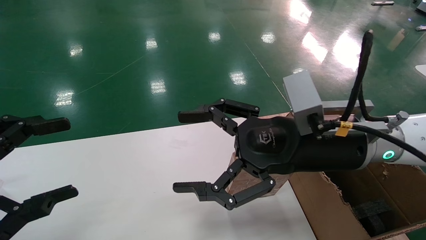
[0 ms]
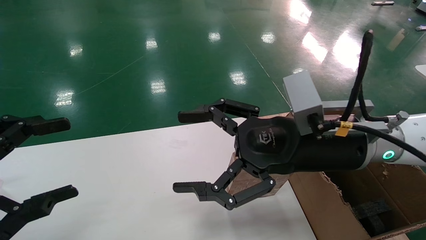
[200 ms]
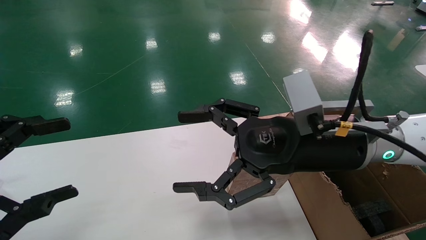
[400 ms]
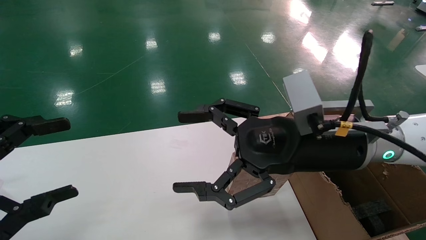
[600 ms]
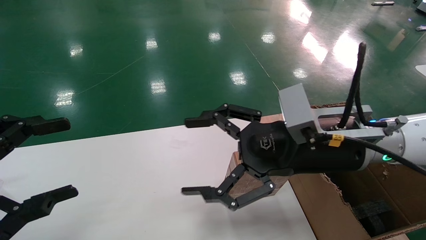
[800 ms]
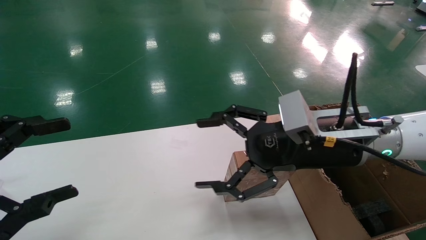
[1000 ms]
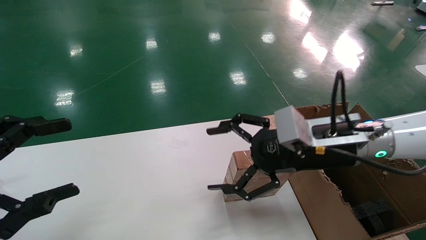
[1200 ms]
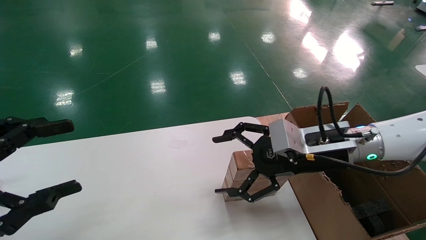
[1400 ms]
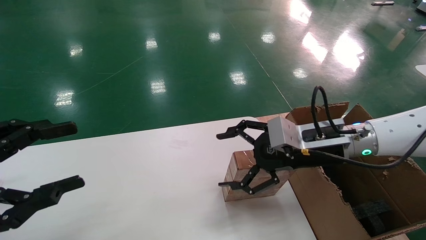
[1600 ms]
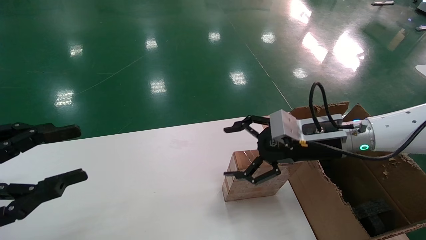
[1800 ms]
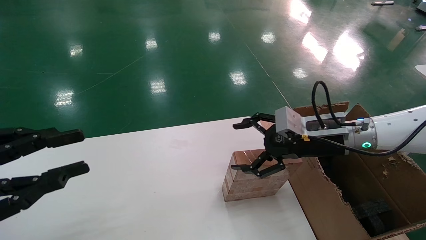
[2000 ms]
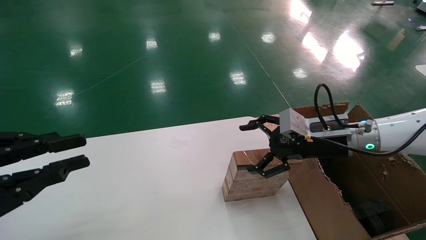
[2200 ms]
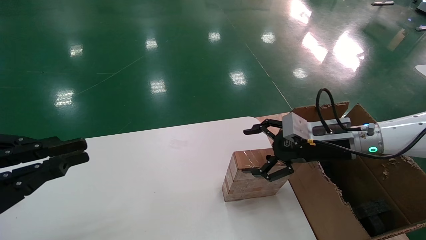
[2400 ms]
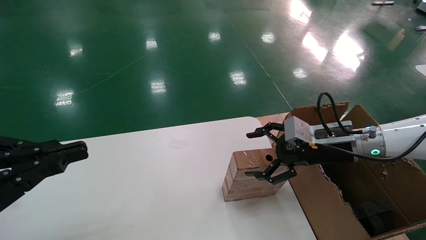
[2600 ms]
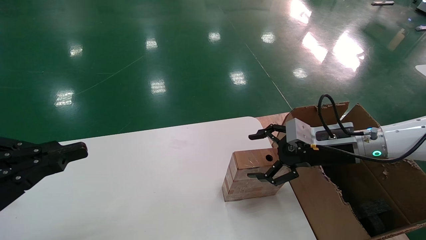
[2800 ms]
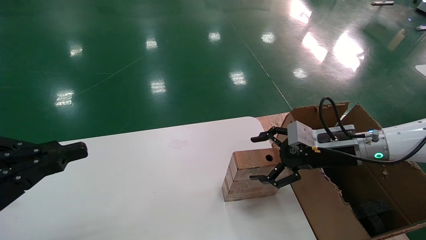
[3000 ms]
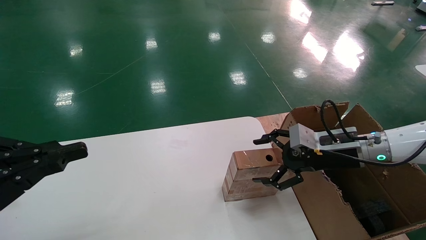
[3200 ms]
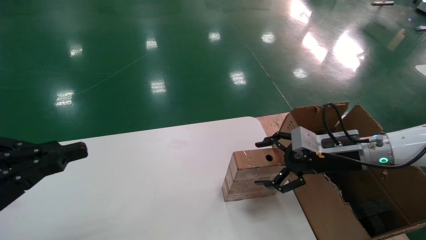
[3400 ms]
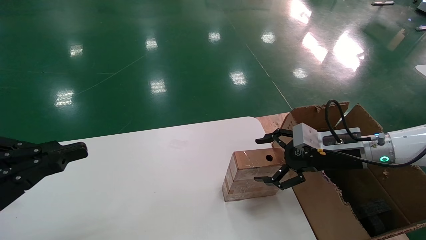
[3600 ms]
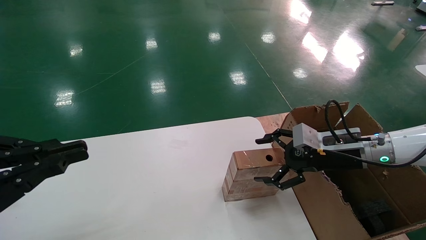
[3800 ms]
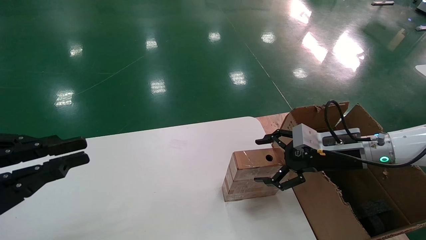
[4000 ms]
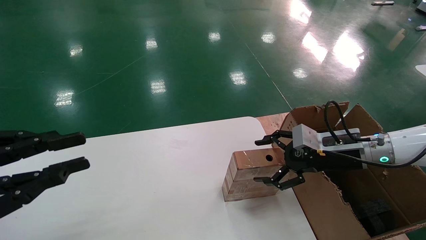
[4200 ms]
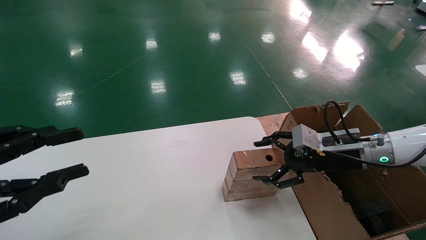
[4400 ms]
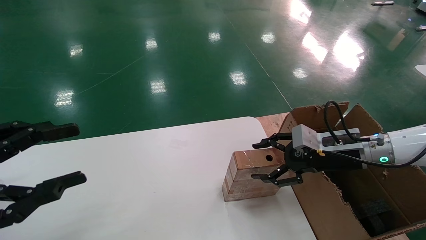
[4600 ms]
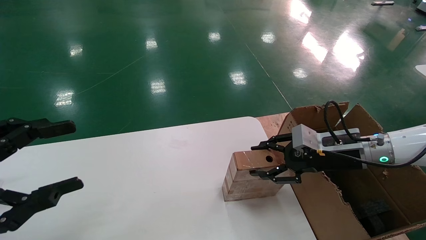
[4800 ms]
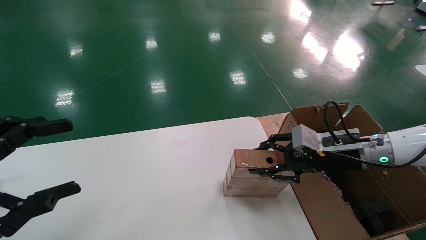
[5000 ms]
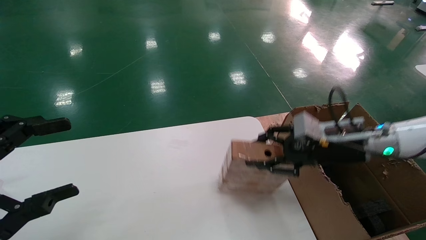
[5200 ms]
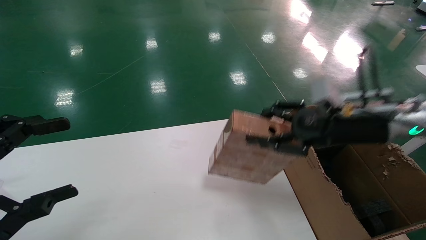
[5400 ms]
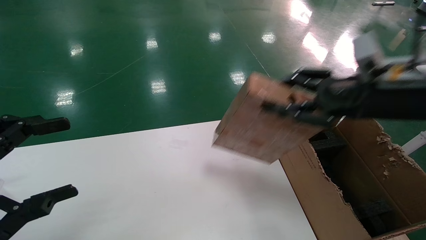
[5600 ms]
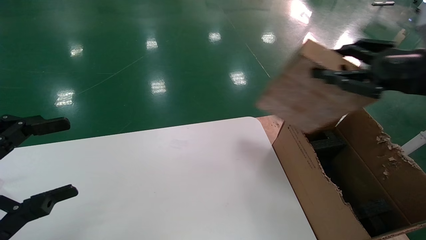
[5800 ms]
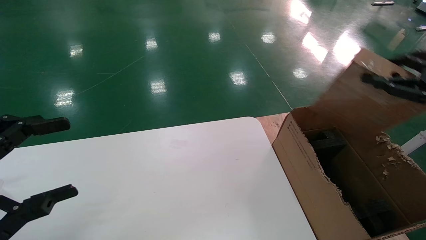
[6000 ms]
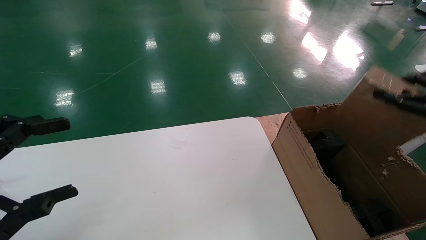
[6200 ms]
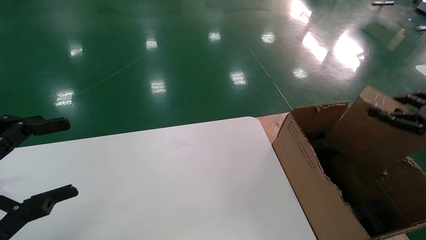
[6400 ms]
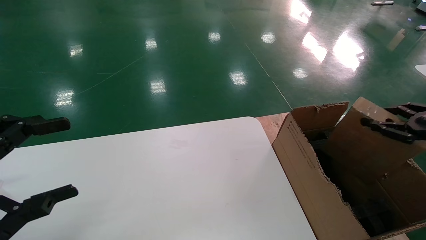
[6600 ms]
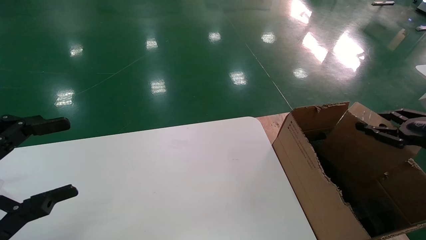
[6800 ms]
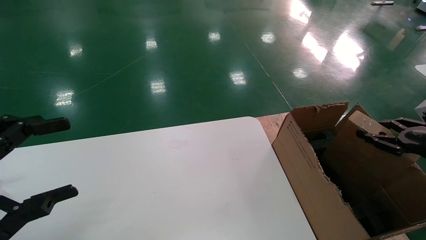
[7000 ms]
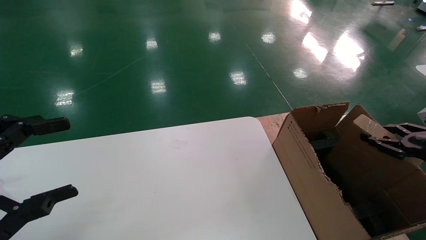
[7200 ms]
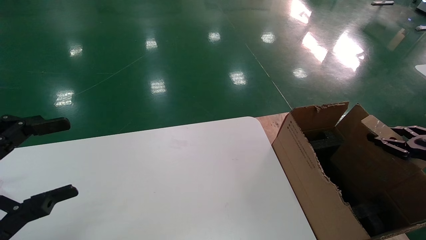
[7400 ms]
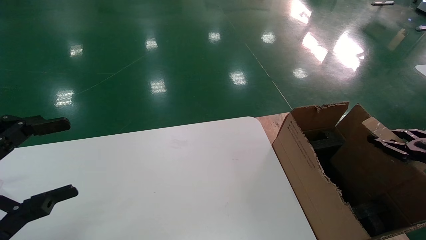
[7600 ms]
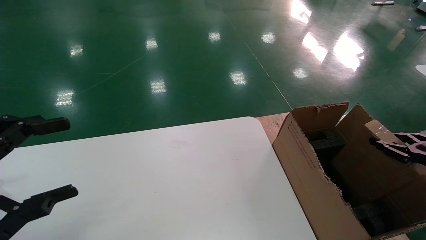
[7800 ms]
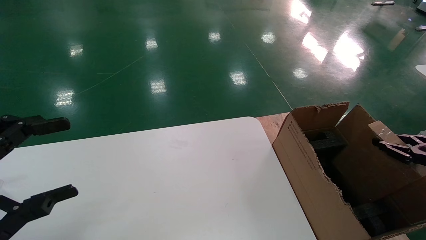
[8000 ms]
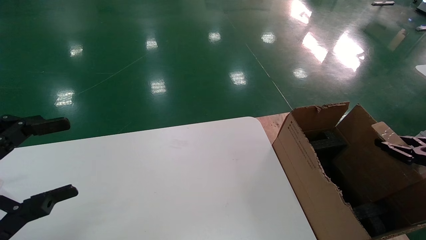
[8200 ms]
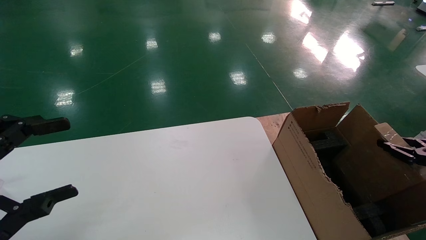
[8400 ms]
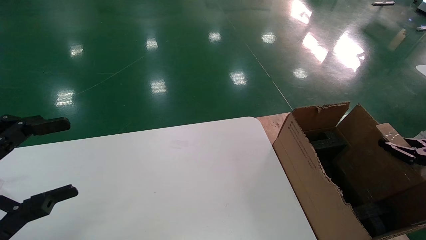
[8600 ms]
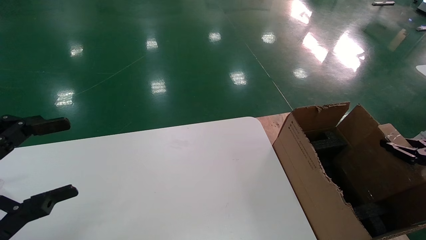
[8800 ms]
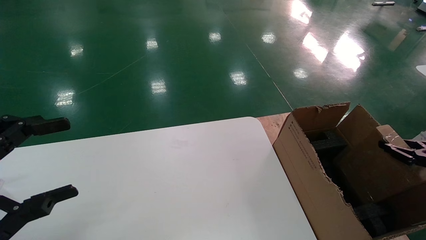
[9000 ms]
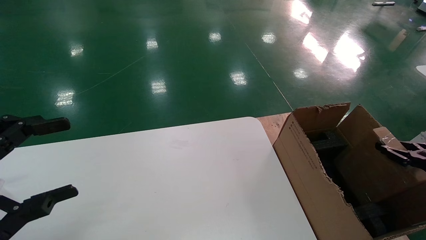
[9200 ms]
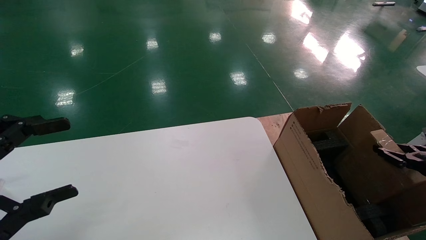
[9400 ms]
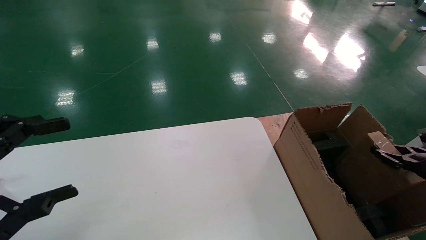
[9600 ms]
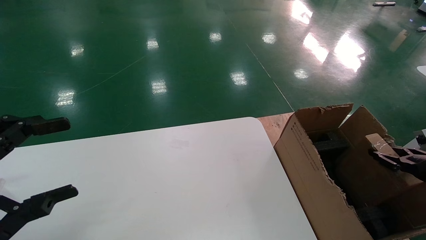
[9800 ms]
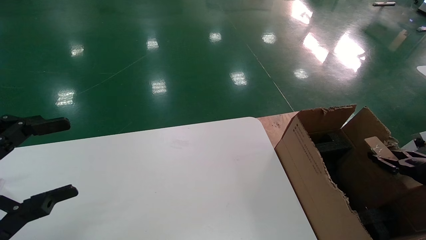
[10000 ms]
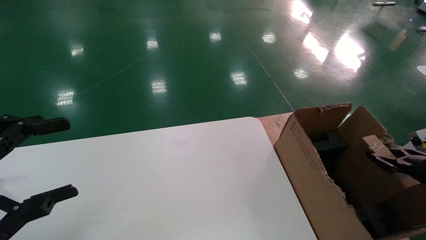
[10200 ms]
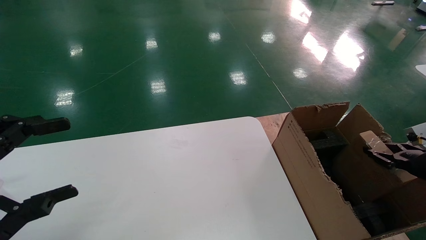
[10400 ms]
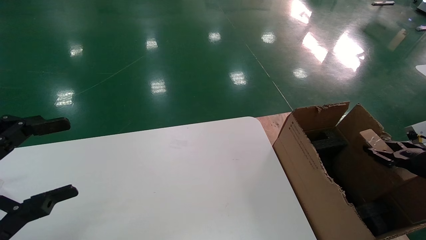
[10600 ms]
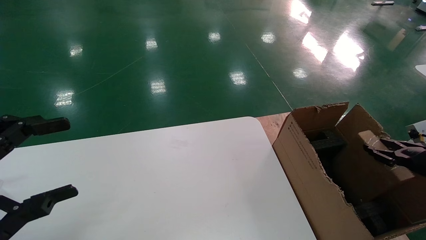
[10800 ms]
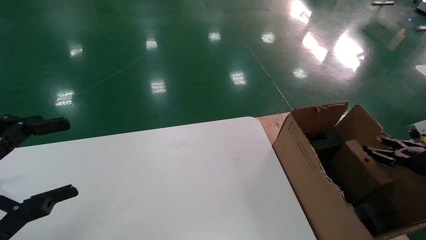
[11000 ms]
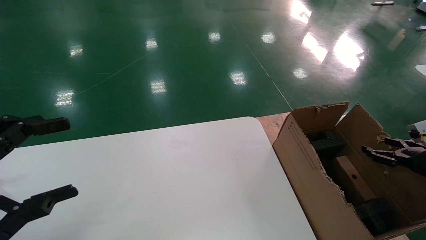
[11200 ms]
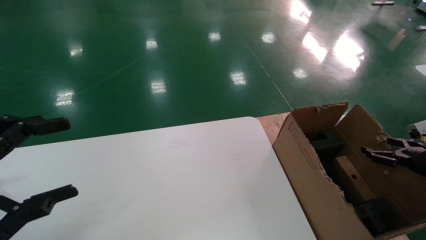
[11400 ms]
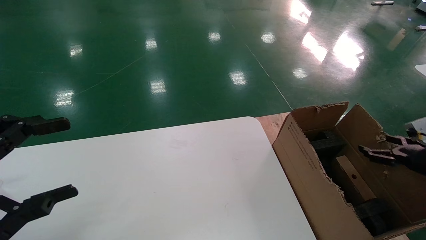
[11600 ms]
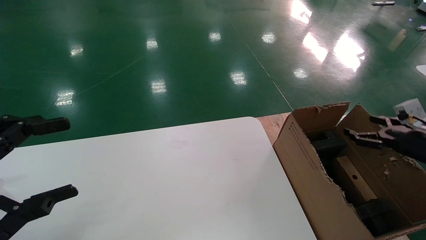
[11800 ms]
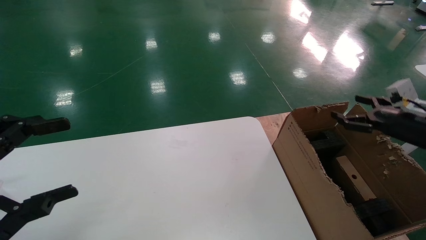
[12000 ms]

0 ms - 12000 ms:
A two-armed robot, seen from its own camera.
Task of the whole recording: put the box on the table into the big box.
Step, 1000 ms - 5000 ms: Pick up the mouse and the power cord paper box.
Step, 5200 ms - 11000 ms: Place the mouse and the power cord paper box into the container.
0 ms - 1600 ms: The right gripper heads forward, to the right and downward, covering roughly 10 cm.
1600 ms - 3000 ms: The left gripper closes its fingers; the right gripper shifts about 5 cm to the right.
3000 ms - 4400 ms: Both grippers stay put.
4400 ms - 6000 ms: The left gripper opens its fingers. Meanwhile the right gripper goes about 25 cm upward, to the right and backward, and closes.
6000 ms - 7600 ms: The right gripper goes roughly 20 cm downward and to the right.
7600 ms - 9000 ms: There are only small adjustments of the grippers.
9000 ms - 10400 ms: There are only small adjustments of the grippers.
10400 ms - 12000 ms: The right gripper travels upward and to the left by approximately 10 cm, and opens up.

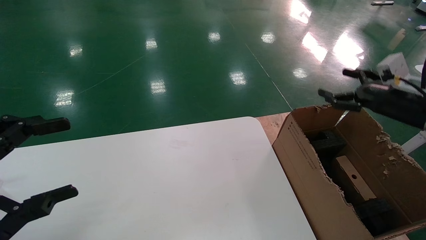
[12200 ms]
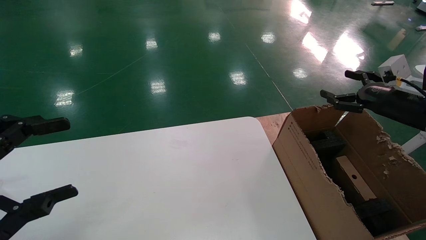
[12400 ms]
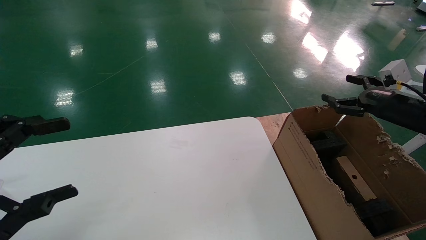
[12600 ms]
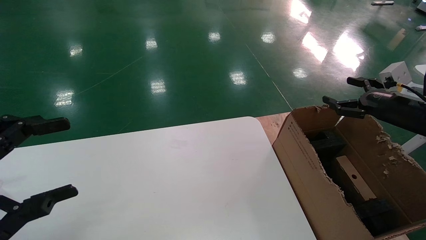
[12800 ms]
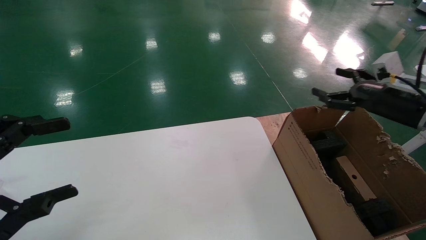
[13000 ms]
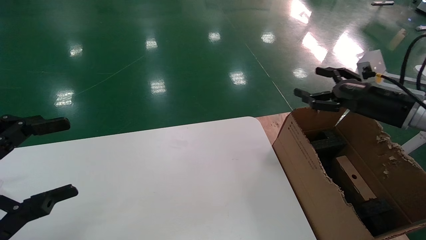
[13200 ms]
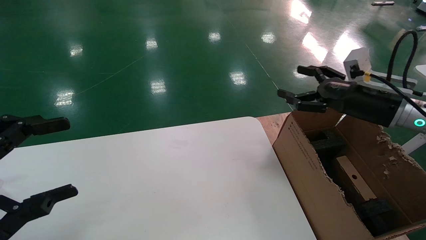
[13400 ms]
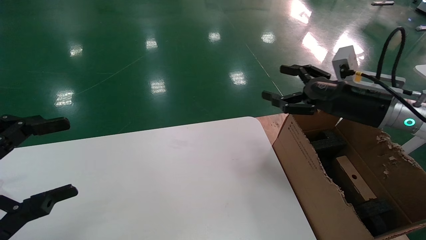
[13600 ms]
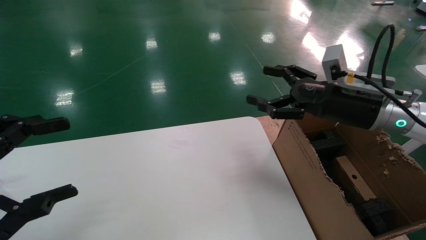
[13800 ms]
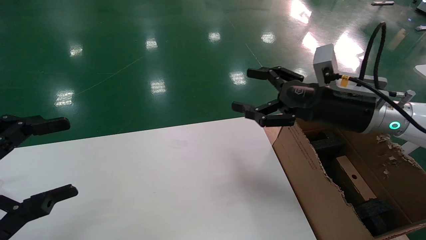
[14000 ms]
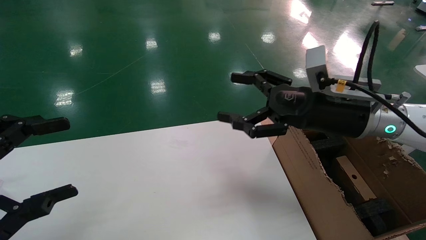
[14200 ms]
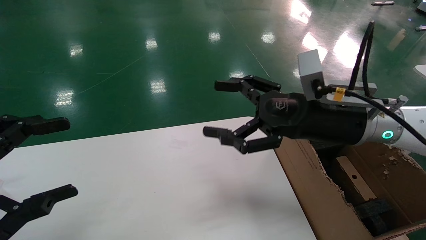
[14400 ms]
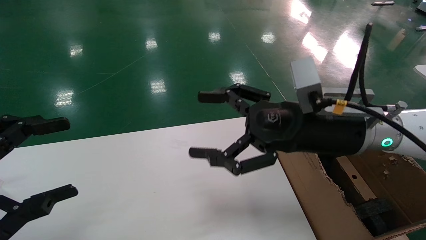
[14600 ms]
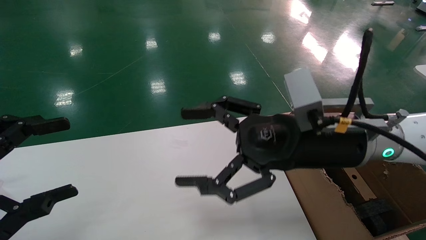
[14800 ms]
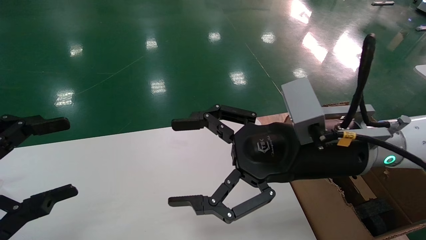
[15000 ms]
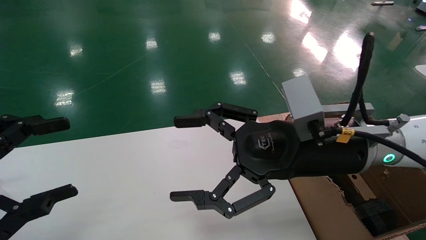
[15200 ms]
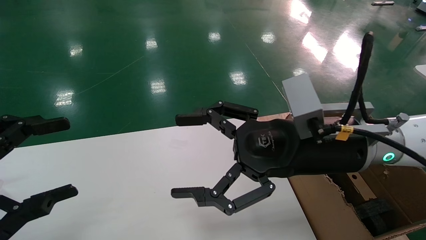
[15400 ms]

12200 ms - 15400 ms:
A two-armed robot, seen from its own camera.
Task of the whole recording: put the box on the table into the big box.
12200 ms - 13800 ms: The right gripper moves to the left, roughly 15 cm.
13800 ms - 15400 ms: The right gripper shifts approximately 15 cm to the left and backward.

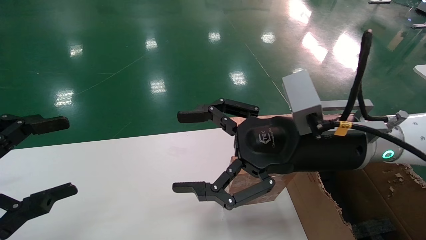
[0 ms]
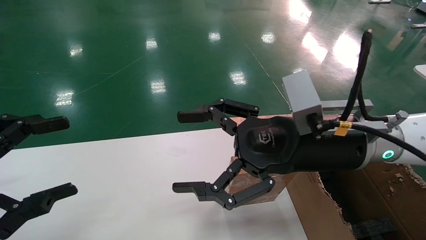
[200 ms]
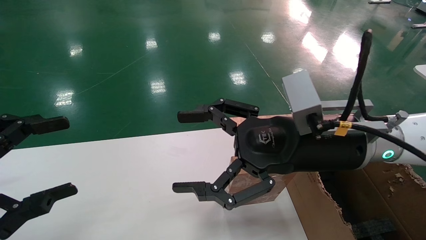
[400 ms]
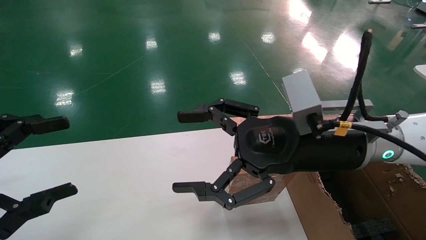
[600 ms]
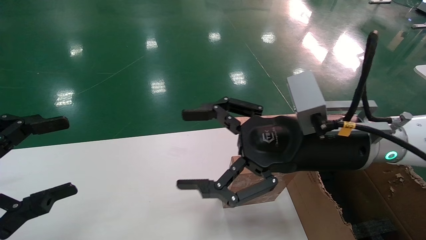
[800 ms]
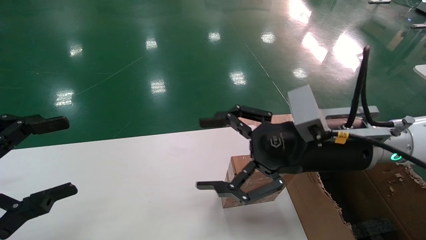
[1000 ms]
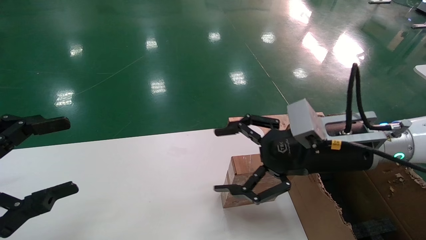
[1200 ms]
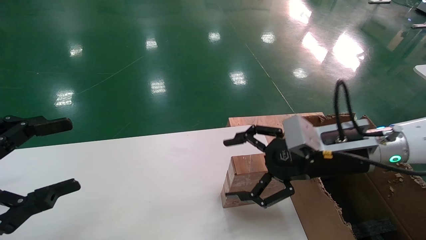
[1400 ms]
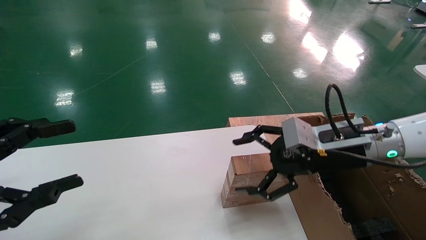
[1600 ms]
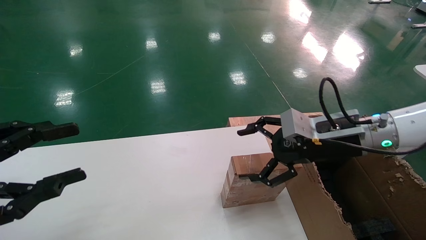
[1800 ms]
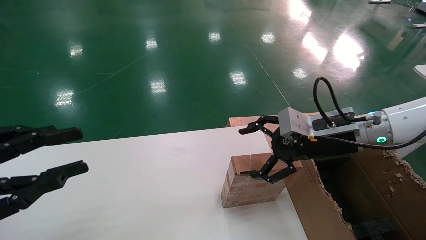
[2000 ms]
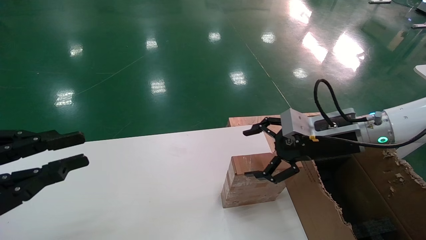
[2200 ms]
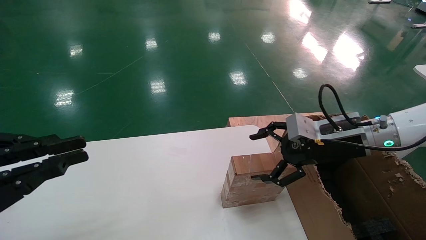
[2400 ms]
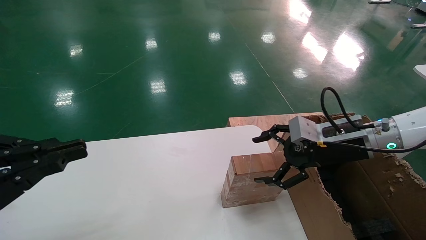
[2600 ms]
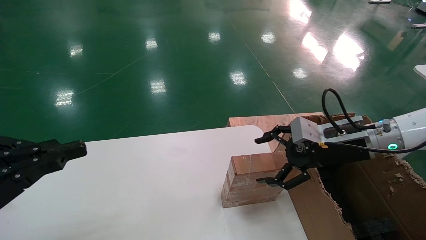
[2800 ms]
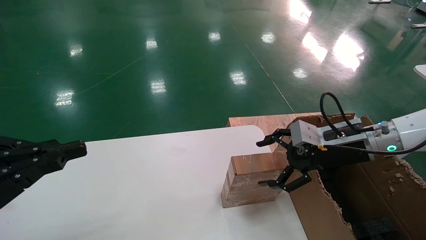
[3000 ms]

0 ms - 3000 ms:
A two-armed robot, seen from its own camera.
Task of the whole recording: put the box on the table into the big box.
0 ms - 1600 ms: The right gripper is displaced to the right and forward by about 10 cm.
1600 ms - 3000 ms: The right gripper goes roughly 5 cm to the right, while the left gripper closes its fingers.
